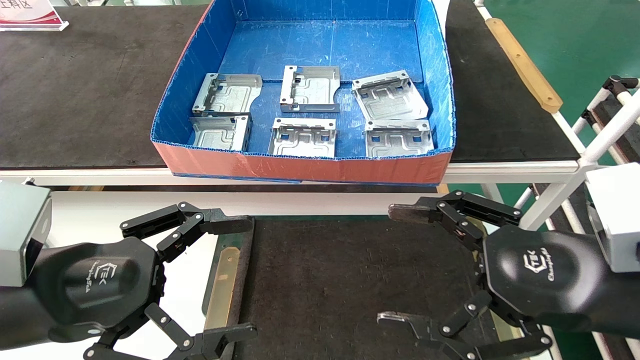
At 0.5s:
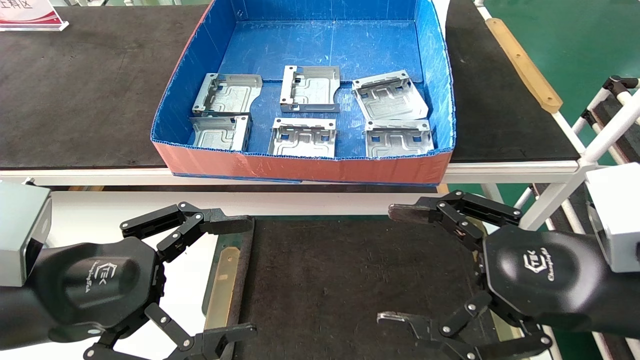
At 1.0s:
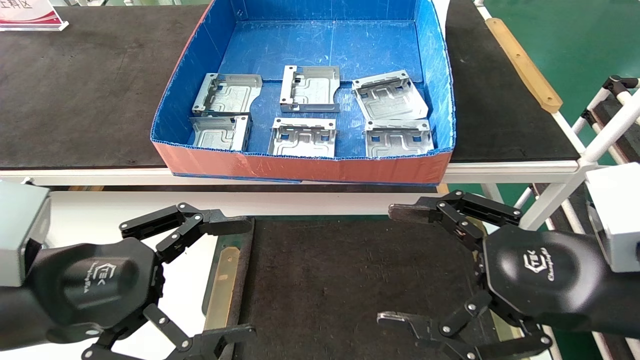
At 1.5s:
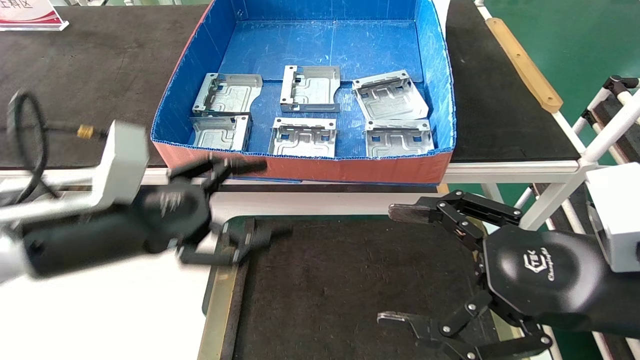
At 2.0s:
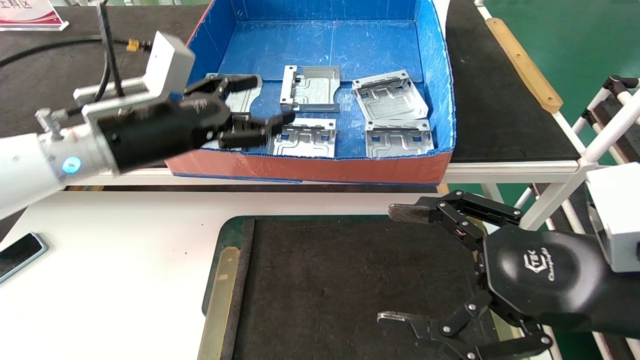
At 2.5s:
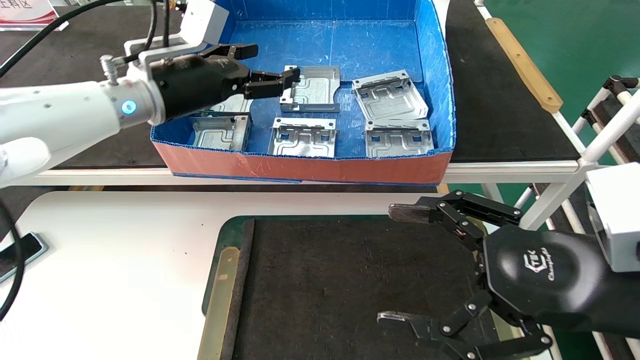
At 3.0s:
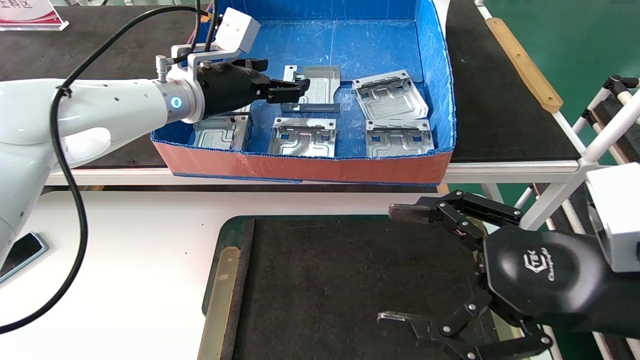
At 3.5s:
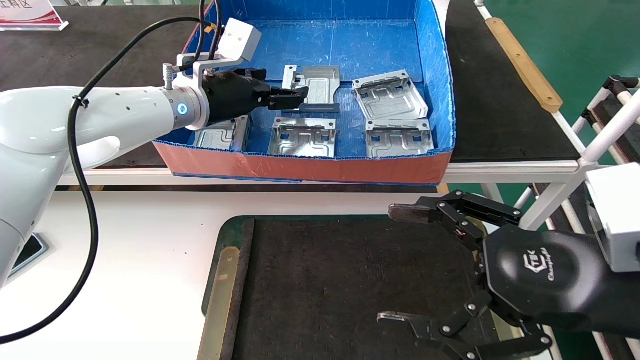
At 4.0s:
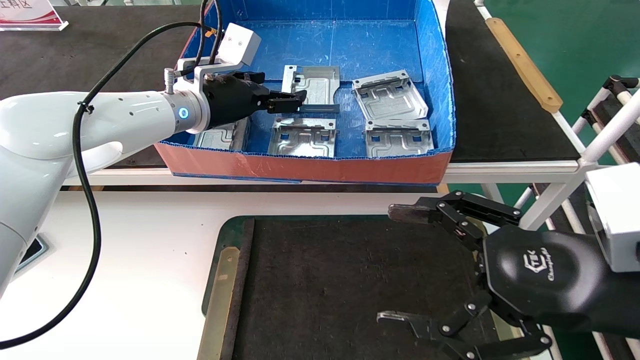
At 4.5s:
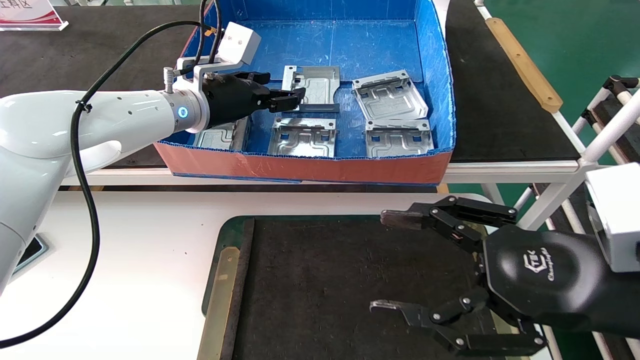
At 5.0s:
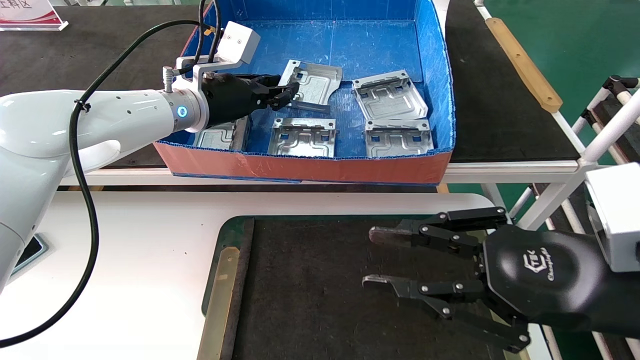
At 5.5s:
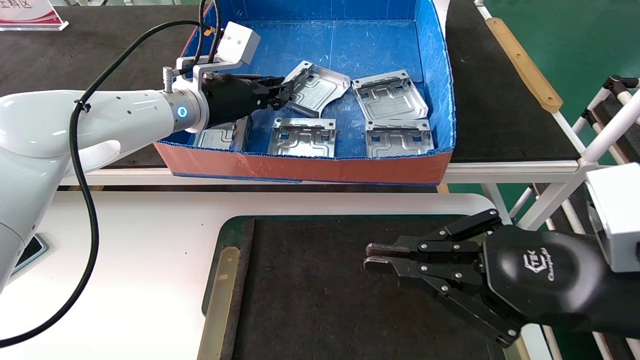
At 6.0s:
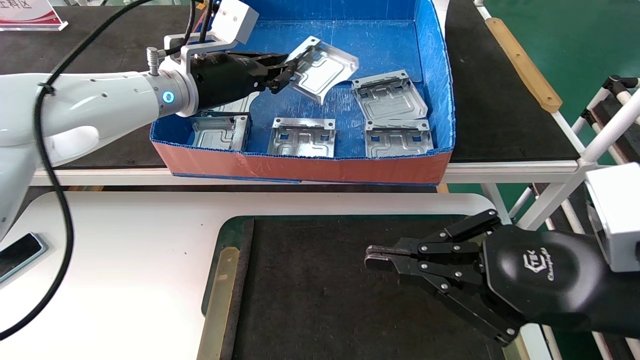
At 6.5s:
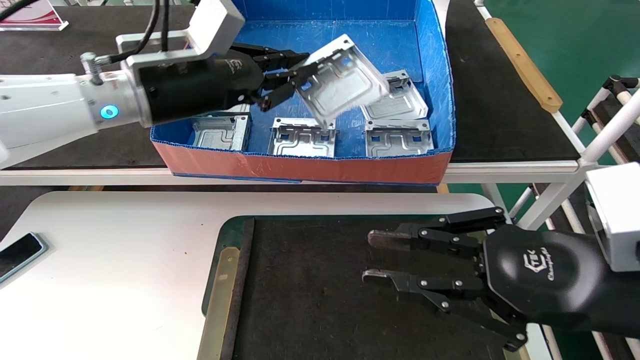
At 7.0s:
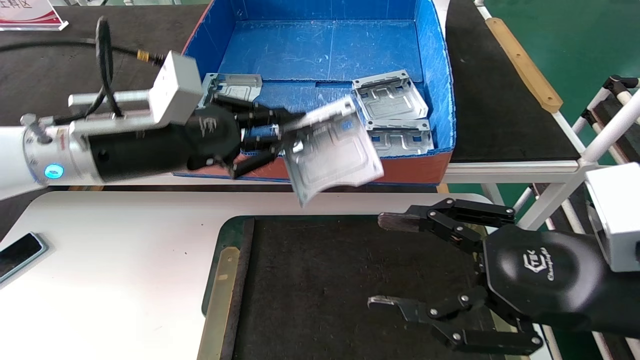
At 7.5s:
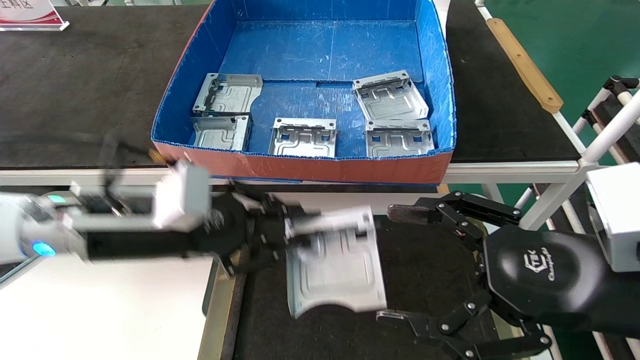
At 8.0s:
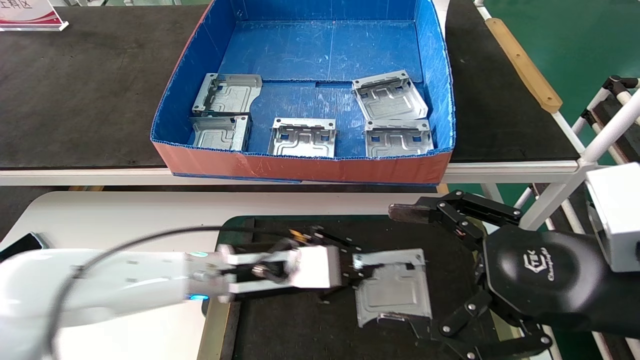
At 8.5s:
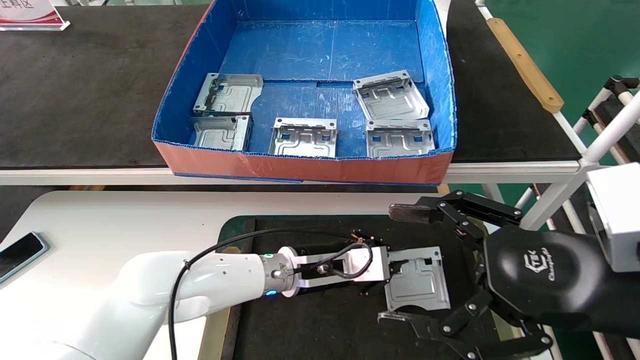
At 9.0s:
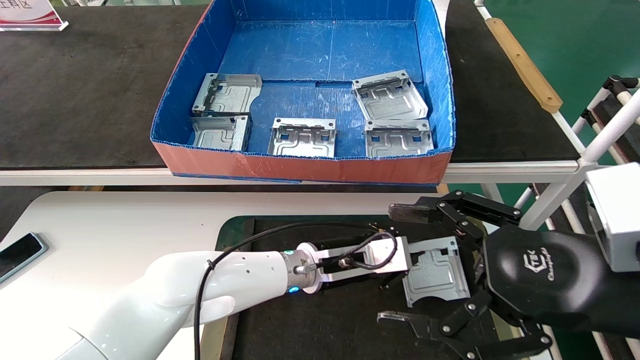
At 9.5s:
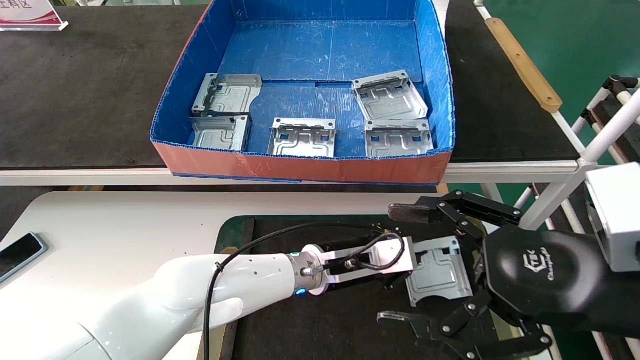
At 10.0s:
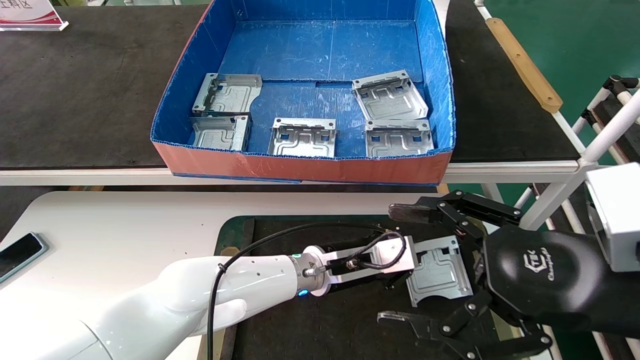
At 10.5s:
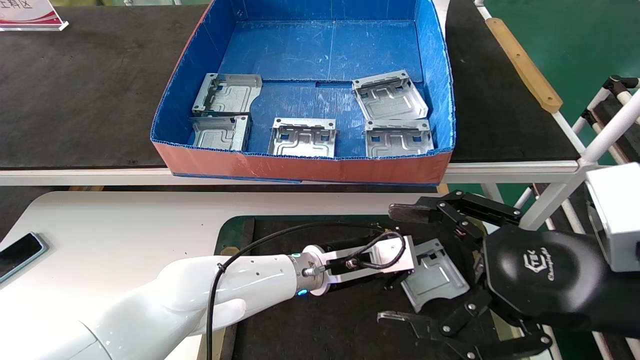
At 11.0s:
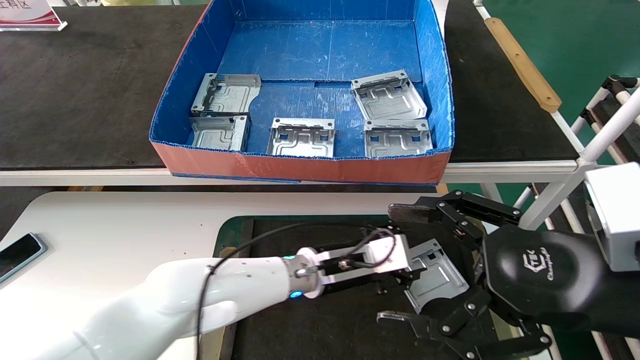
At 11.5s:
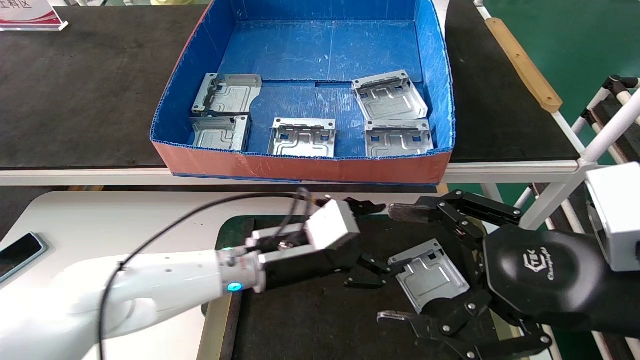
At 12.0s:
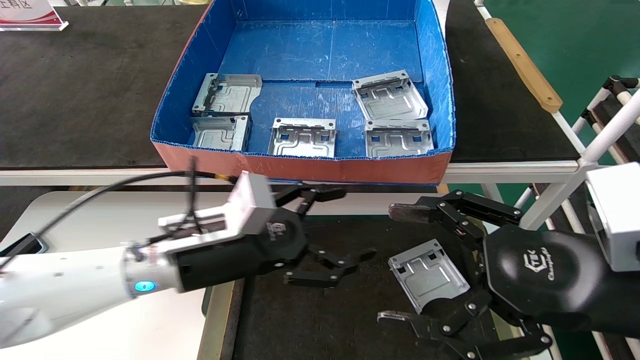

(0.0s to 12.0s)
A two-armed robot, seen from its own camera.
Task of the whole recording: take the accessories out of the box and place them on the table.
Step, 1.5s - 5.5s: Pick up the hard drive bracket from the feeding area.
Step, 6.0s - 10.5s: Place the hard drive bracket into the box.
0.0s - 2.0s: The left gripper heads forward and upward, covering about 20 cm.
2.0s - 4.0s: The left gripper travels forward and to the right by some 15 cm.
4.0s - 6.0s: The left gripper closes its fingers; the right gripper closes.
6.0s - 8.0s: The left gripper shifts about 20 cm downward, while the right gripper opens.
8.0s - 10.0s: The left gripper goes approximately 10 cm to the right.
10.0s - 12.0s: The left gripper goes approximately 20 cm to the left, backward and upward, and opens up.
